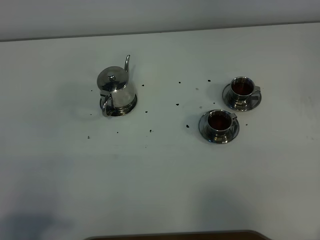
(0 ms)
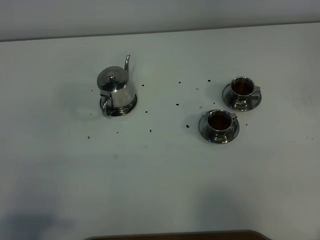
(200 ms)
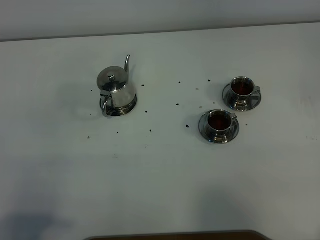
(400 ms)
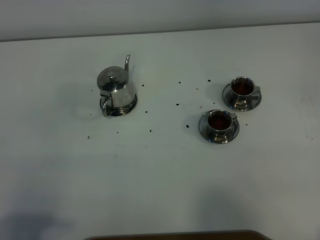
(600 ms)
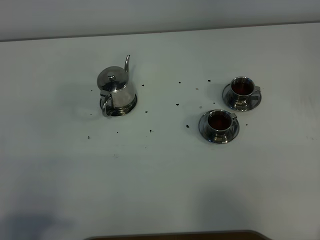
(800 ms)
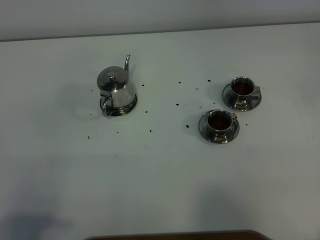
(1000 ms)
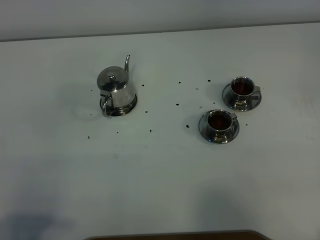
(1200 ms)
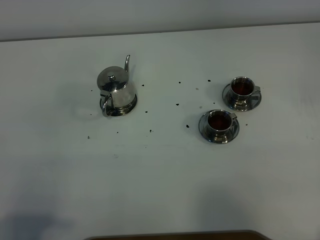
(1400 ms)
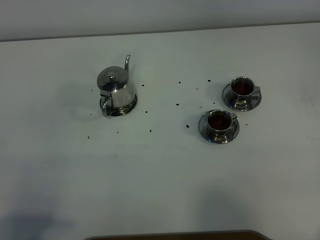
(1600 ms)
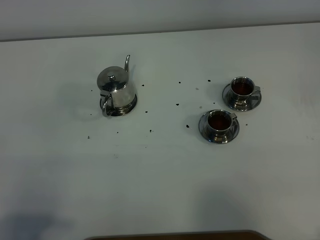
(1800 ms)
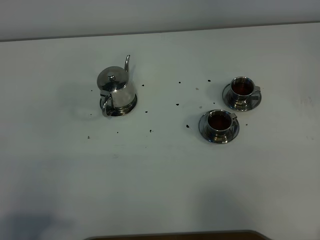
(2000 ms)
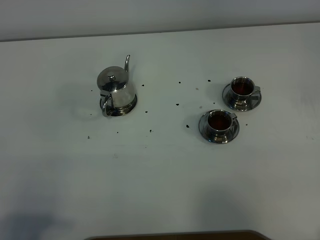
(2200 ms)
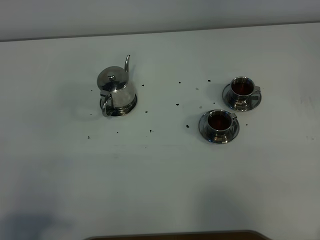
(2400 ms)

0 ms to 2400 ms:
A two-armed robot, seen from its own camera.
Task of the whole recording: grasp the stainless steel teapot and pour the tea into the two stainless steel teacups one by one, put the stainless steel teapot back in its original place.
0 ms to 2400 ms: Both grippers stay put.
